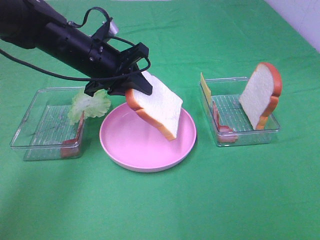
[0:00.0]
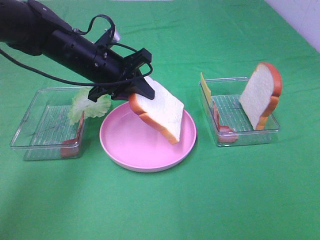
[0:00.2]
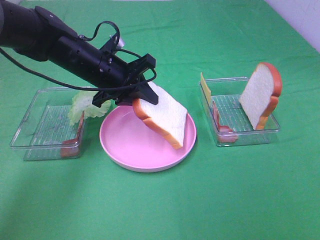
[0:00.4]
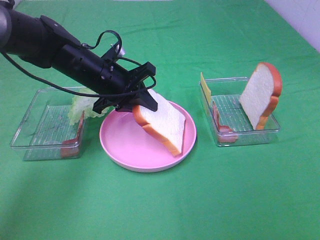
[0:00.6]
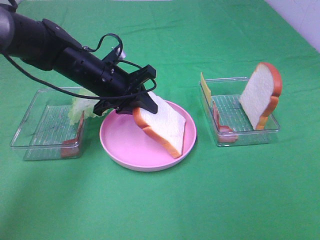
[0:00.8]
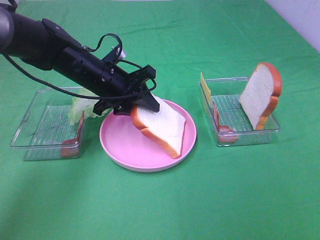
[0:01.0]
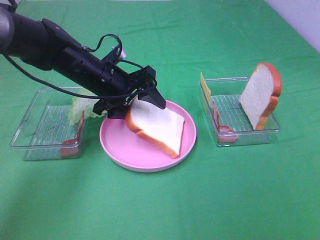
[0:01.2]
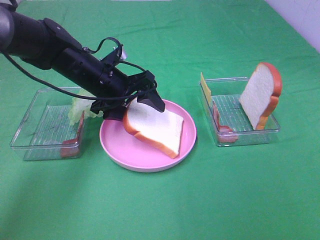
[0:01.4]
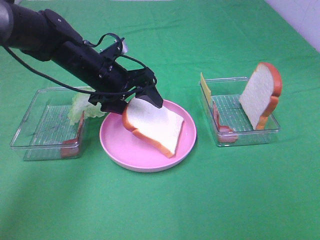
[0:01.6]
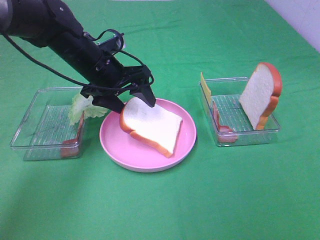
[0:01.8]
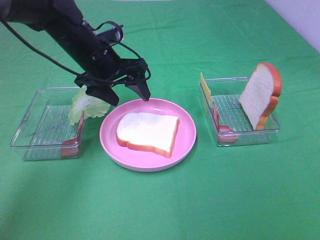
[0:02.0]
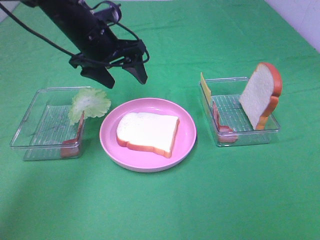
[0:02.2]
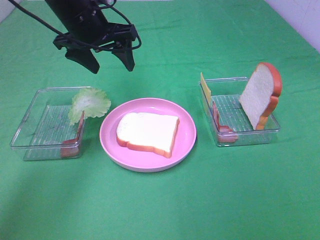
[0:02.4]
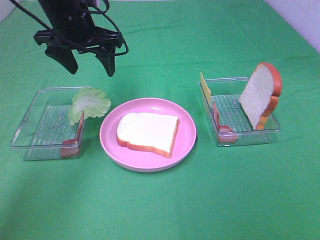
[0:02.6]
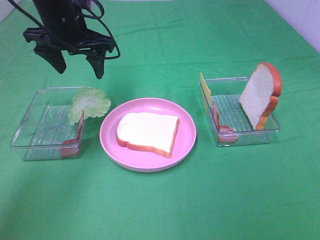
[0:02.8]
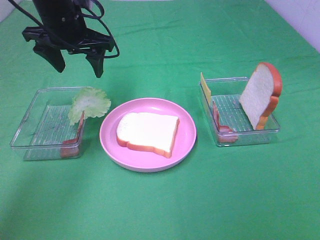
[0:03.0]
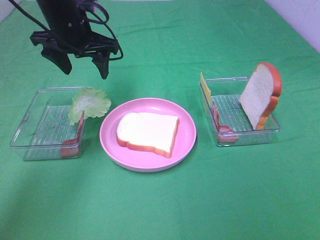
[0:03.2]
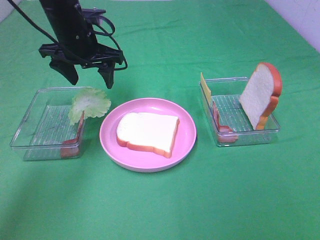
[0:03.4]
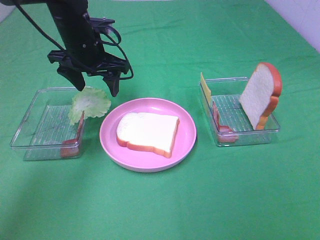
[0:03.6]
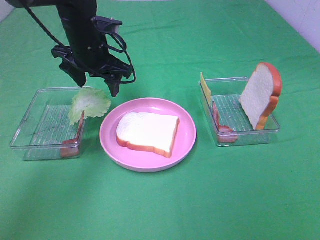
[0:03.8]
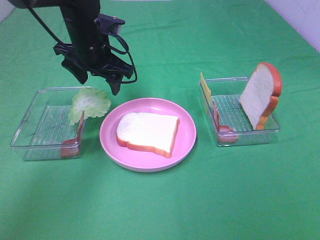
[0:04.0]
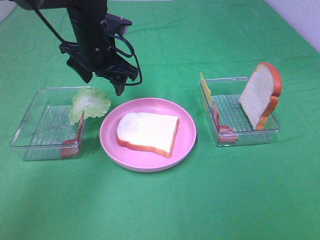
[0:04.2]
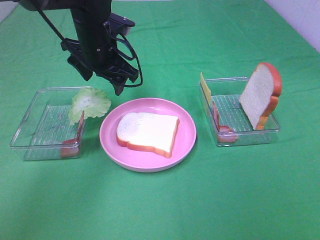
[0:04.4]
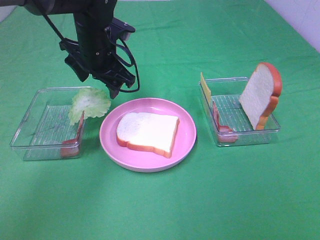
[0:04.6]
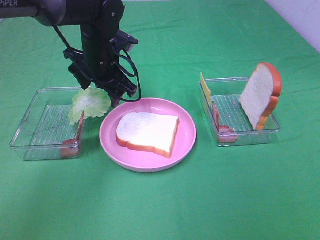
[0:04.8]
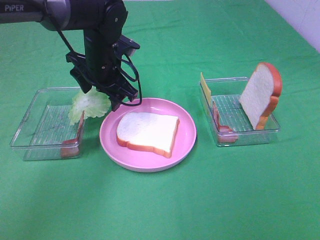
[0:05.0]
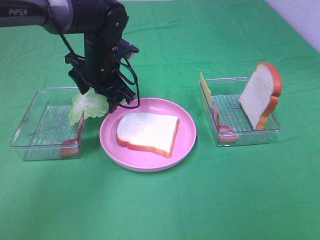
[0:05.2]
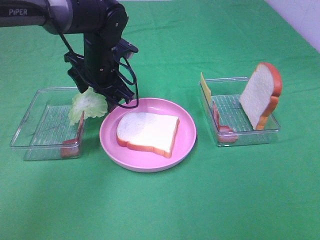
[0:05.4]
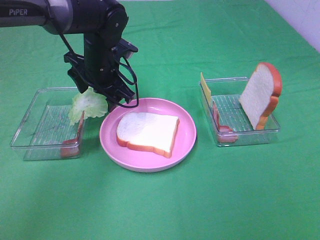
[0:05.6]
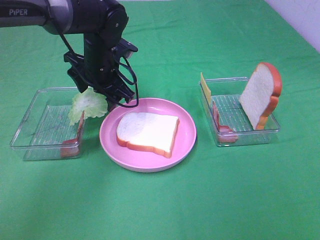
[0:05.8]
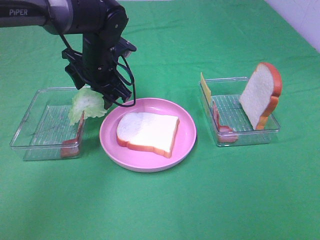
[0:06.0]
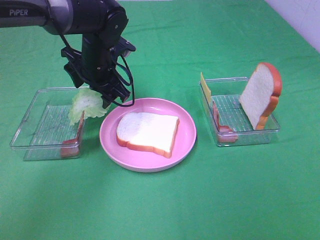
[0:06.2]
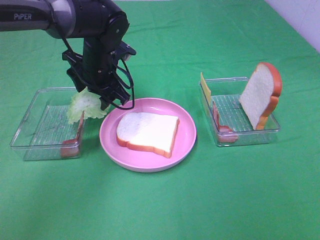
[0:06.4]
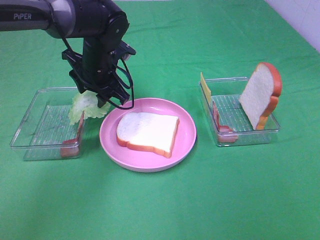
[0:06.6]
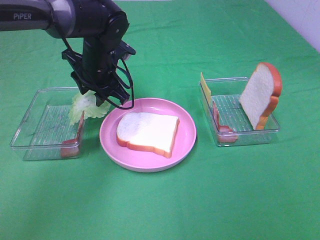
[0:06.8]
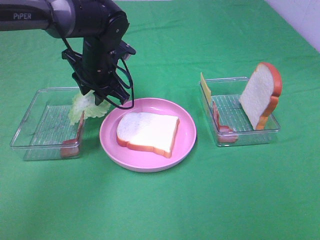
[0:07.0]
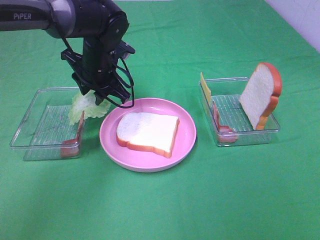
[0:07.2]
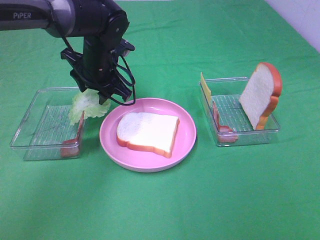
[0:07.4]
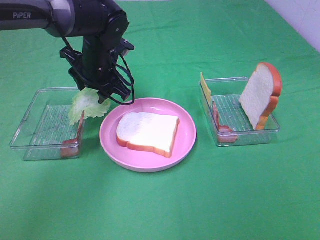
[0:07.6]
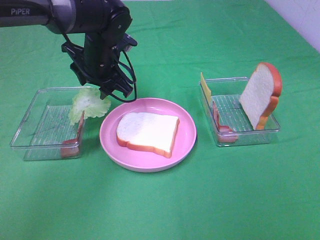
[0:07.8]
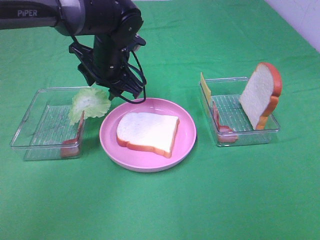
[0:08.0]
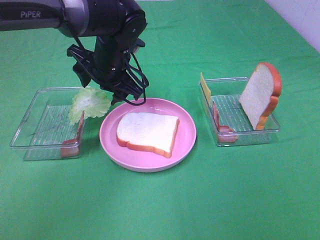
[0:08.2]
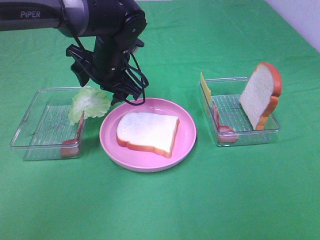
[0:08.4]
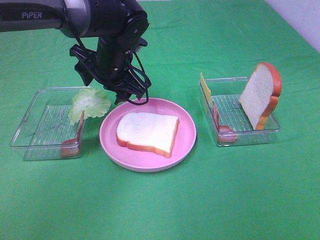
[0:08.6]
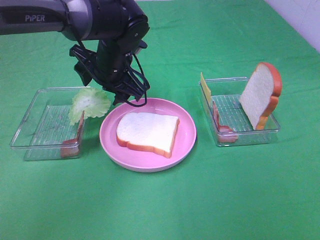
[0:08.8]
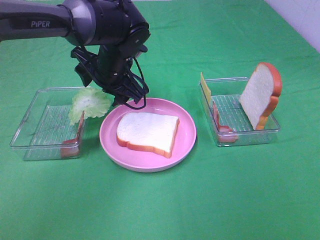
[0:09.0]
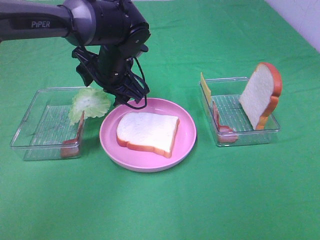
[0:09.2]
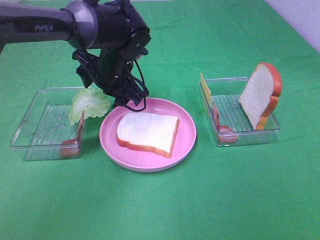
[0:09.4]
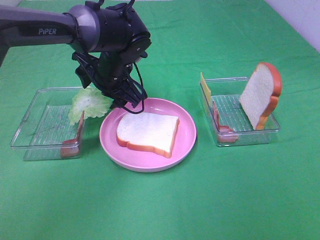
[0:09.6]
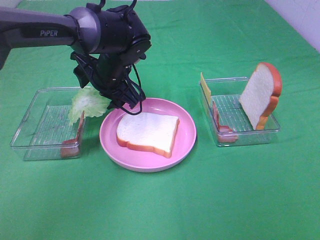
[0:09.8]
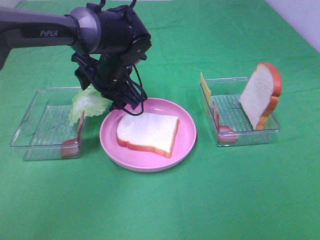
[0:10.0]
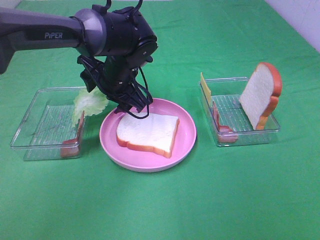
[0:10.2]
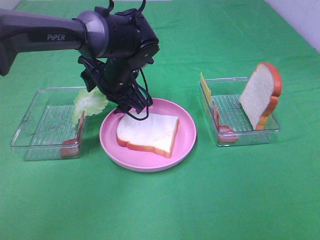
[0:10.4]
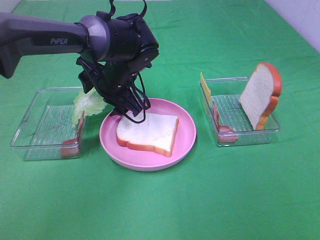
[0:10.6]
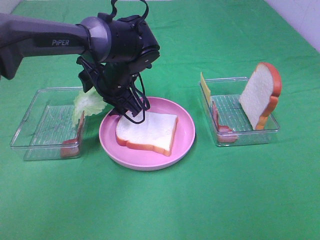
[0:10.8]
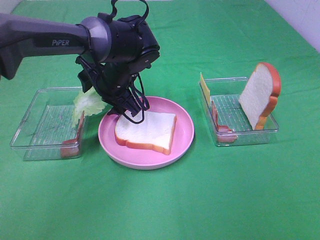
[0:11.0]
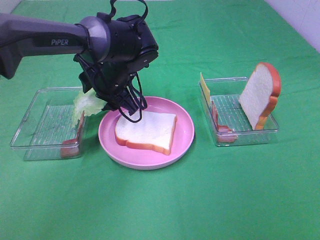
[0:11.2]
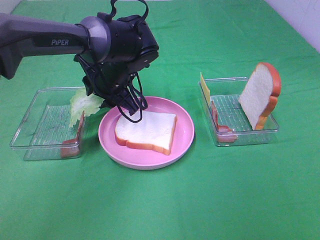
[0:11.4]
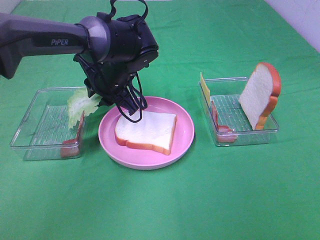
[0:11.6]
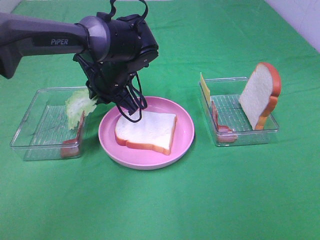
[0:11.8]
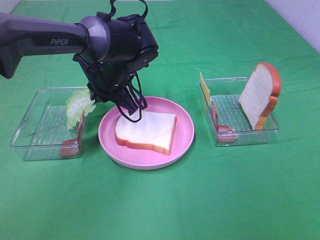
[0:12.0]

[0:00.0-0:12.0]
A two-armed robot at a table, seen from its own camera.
Task of the whole recording: Make sandwiches.
Step, 0:00.0 to 0:02.2: Left hand:place the bread slice on the plate.
0:00.0 to 0:01.6: The left gripper opens up.
0:01.6 to 0:03.0: The left gripper travels upward by approximately 10 cm.
0:03.0 to 0:04.4: The left gripper moves to the right and downward, roughly 5 cm.
0:04.4 to 0:06.0: The grippers move only a little.
0:06.0 to 0:07.6: Both grippers stay put.
0:07.6 to 0:10.4: The grippers make only small movements.
0:10.4 to 0:12.0: The left gripper closes up.

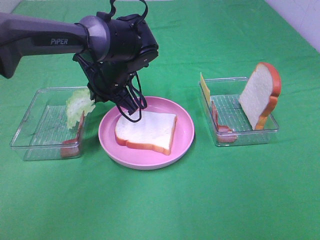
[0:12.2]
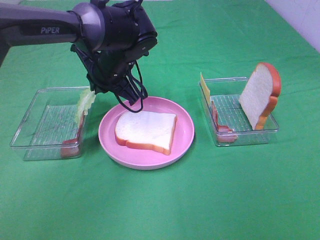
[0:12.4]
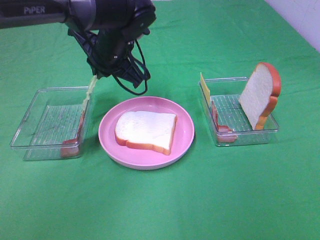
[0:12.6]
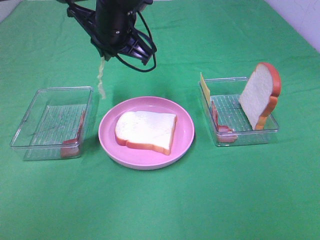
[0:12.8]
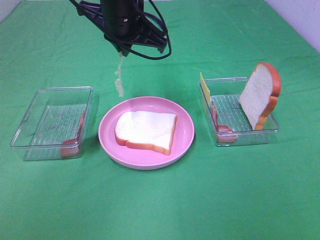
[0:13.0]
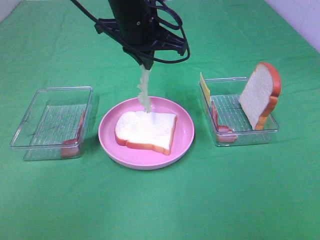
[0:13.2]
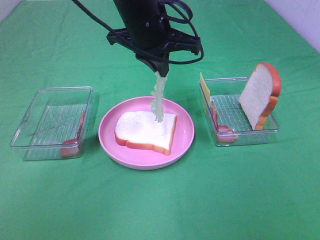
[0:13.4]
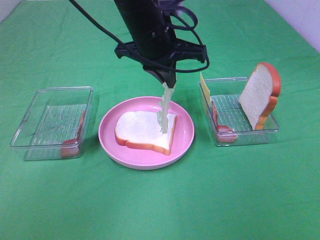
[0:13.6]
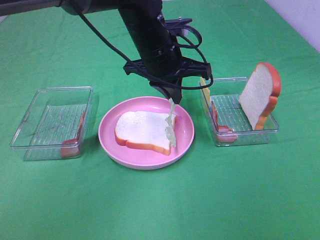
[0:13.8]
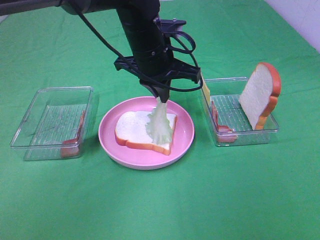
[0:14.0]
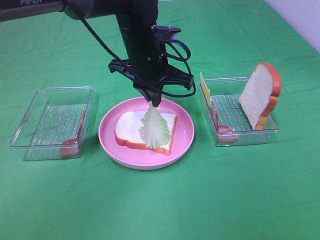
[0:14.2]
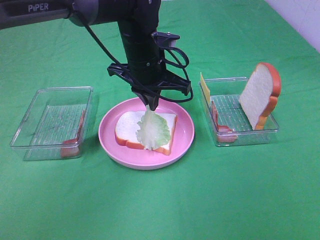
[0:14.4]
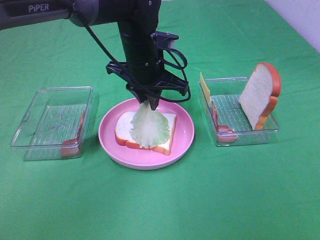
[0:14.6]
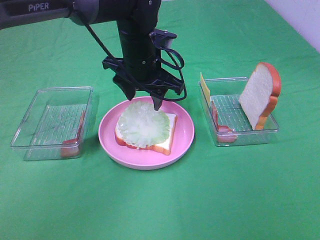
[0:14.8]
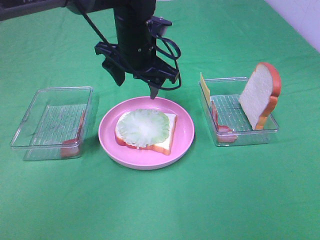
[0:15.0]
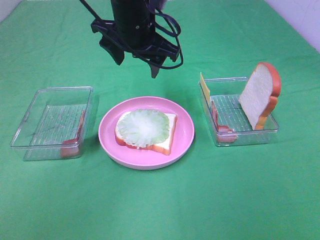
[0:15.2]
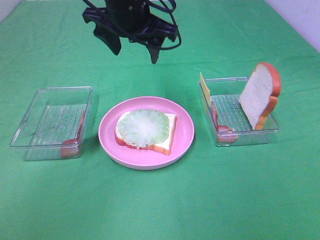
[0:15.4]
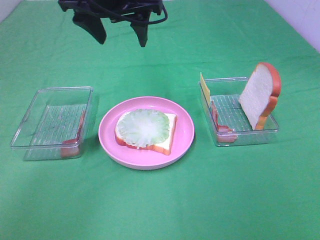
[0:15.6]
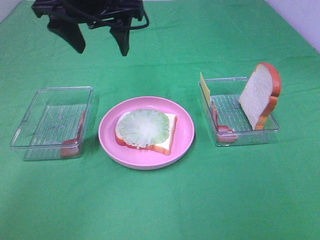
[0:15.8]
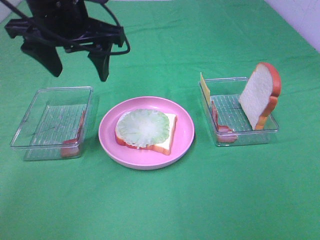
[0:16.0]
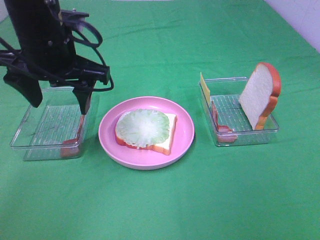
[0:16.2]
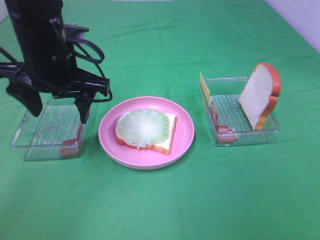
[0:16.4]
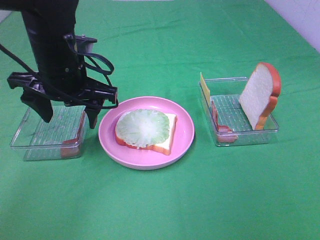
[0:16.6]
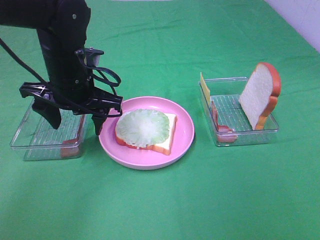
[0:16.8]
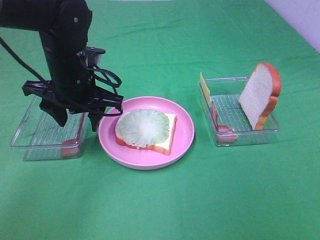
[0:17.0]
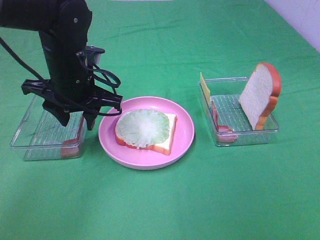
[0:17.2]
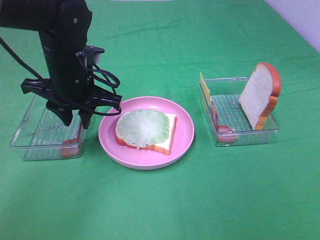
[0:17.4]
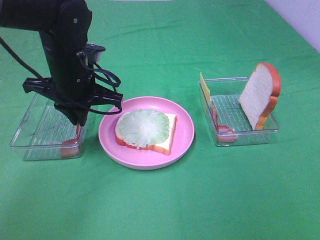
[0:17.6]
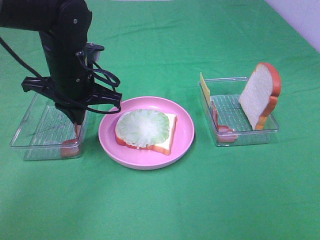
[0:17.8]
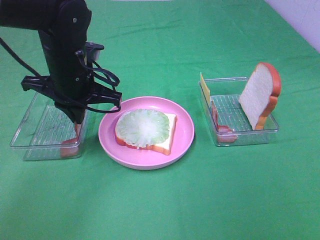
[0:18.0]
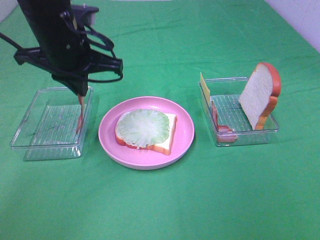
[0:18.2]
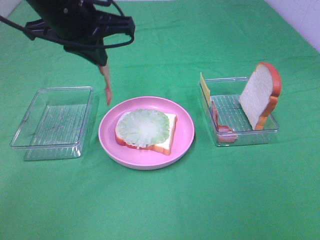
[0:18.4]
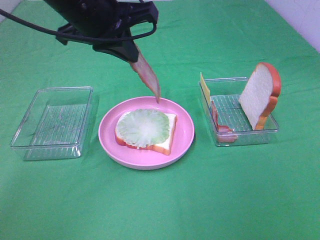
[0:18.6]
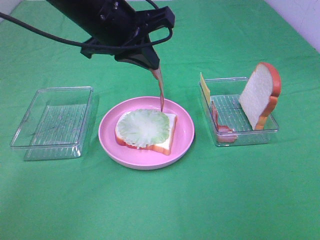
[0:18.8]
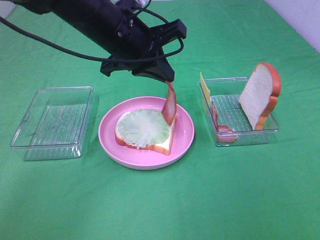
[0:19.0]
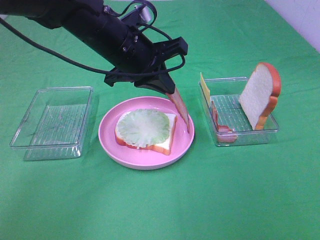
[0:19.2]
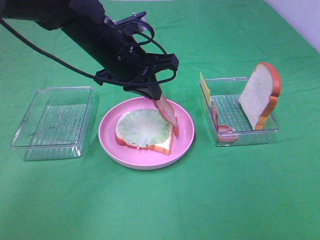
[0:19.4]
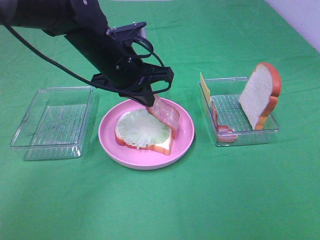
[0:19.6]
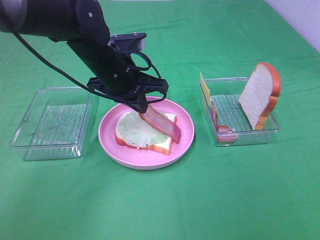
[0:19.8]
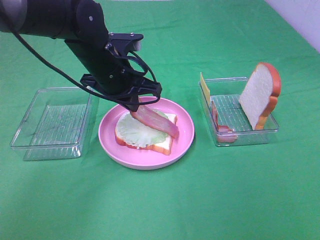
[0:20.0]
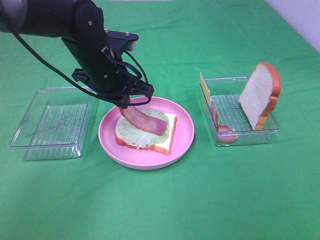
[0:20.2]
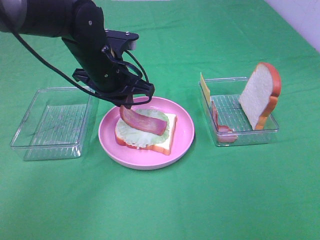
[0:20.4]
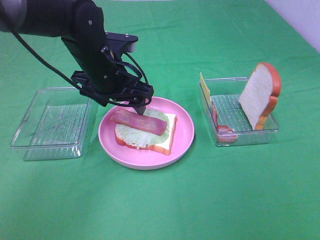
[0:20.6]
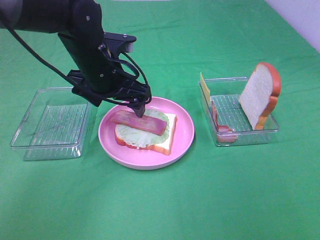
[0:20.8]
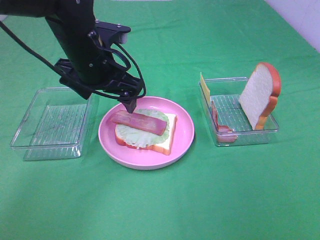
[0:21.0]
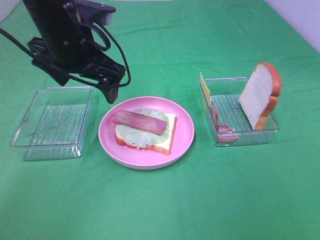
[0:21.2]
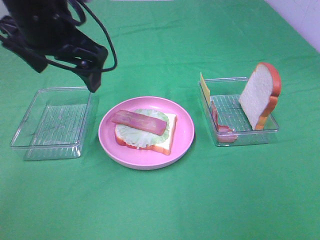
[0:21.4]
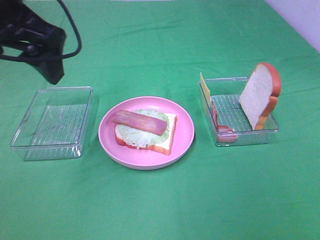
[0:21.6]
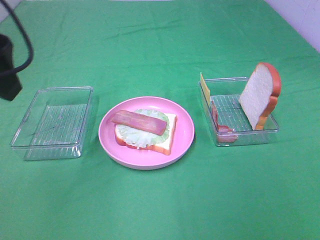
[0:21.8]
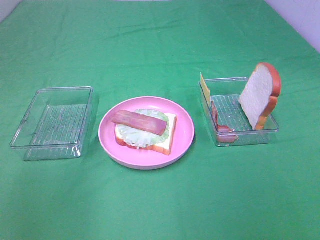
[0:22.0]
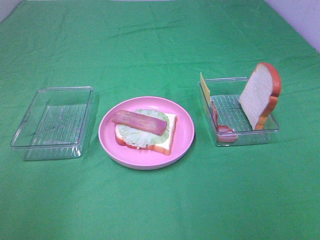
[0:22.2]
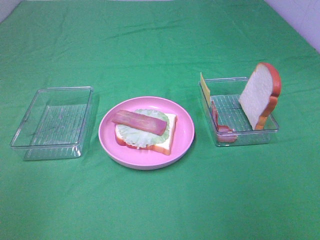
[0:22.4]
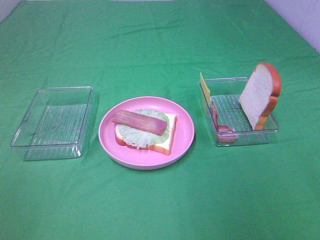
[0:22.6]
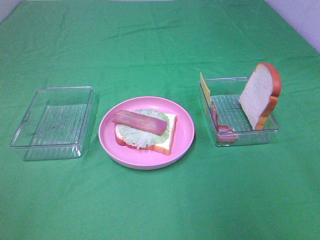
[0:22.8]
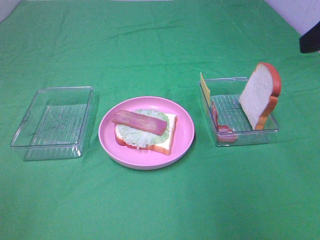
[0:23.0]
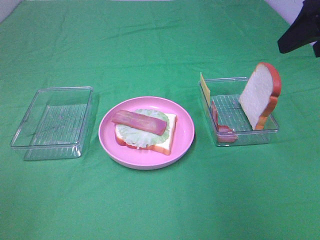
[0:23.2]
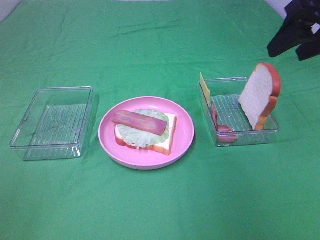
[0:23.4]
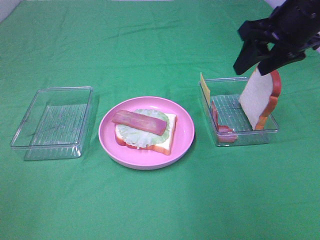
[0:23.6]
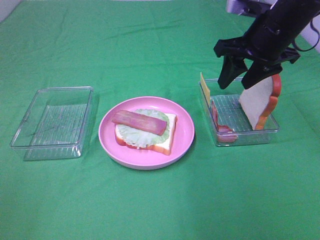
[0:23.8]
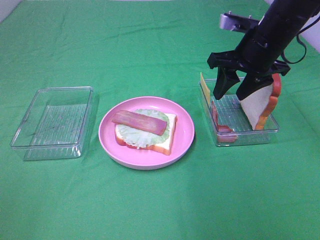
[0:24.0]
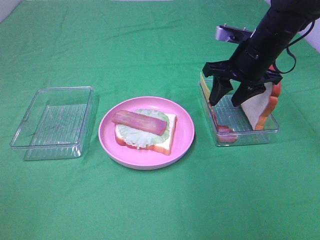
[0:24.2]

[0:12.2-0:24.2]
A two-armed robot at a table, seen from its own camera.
Task of the whole recording: Make sandwiches.
Step, 0:12.6 to 0:15.2: Left hand:place the lettuce slice on the bread slice.
Step, 0:15.4 to 0:17.6: Left hand:grab the bacon.
Step, 0:17.8 to 0:21.0: Left hand:place bacon on lettuce slice.
0:12.2 to 0:13.8: The left gripper is displaced upward and to the right by about 10 cm.
0:13.8 to 0:15.2: The left gripper ends up about 5 cm from where it was, and opens.
0:15.2 to 0:16.6: The left gripper is displaced to the left and backward by roughly 10 cm.
0:16.6 to 0:18.2: The left gripper travels upward by some 5 cm, and closes.
0:18.2 to 0:19.8: The left gripper heads downward and to the right, covering approximately 10 cm.
0:19.8 to 0:21.2: The left gripper travels upward by approximately 10 cm, and opens its fingers.
0:21.2 to 0:22.6: The left gripper travels backward and to the left by approximately 40 cm, while the right gripper shifts about 10 cm forward.
0:22.6 to 0:24.2: The right gripper heads forward and downward, covering roughly 30 cm.
